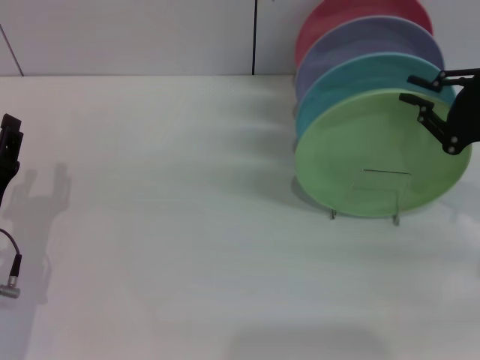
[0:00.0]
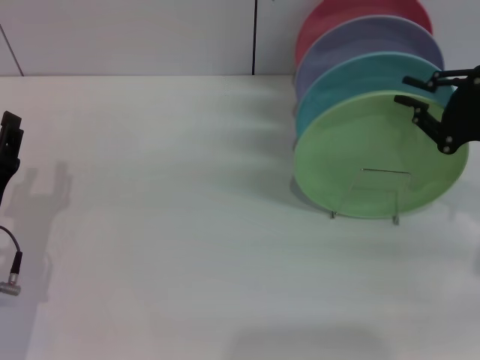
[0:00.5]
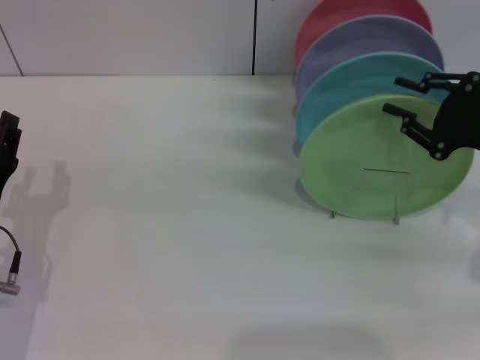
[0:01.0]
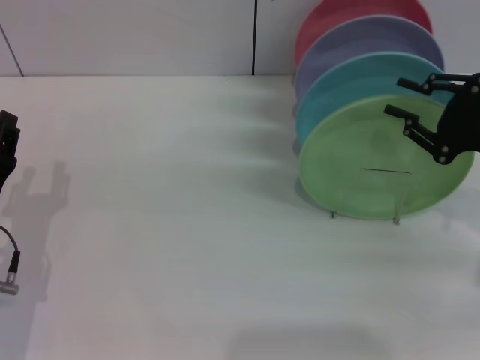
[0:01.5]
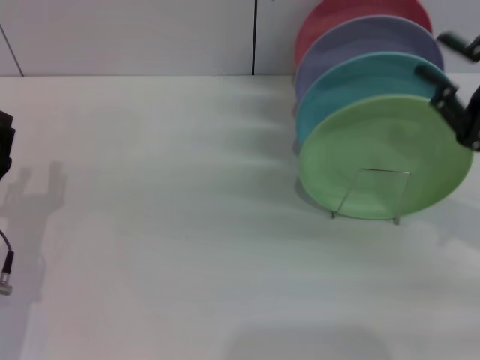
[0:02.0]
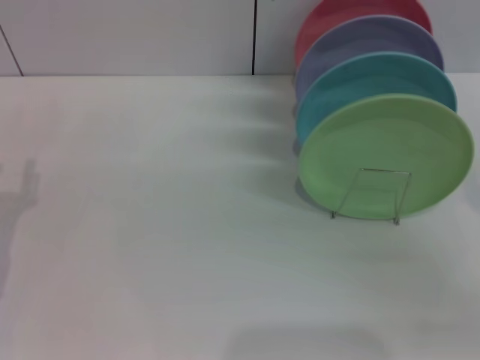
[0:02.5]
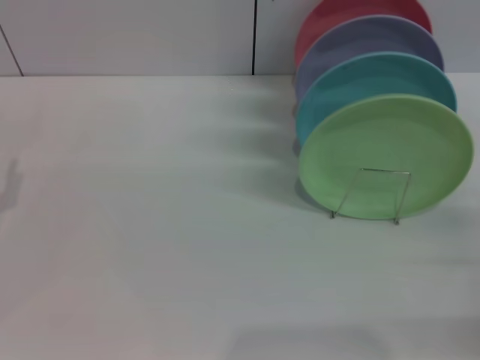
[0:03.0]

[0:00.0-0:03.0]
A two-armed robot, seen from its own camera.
Task of the whole recording: Grip the plate with one hand, pass it to the other, then set it on the shelf.
0:00.0 to 0:01.5: Both grippers stay put.
0:01.5 to 0:03.0: The left gripper goes roughly 5 cm to the left. The right gripper is displaced backward and downward by roughly 10 cm.

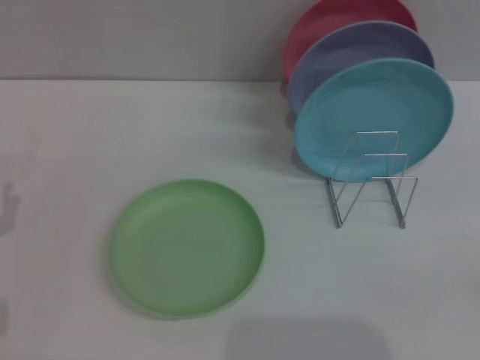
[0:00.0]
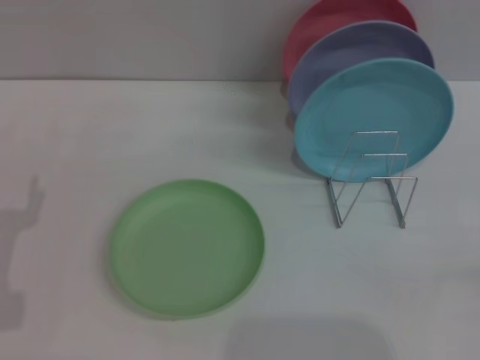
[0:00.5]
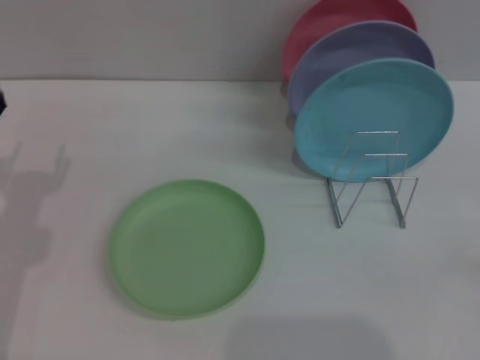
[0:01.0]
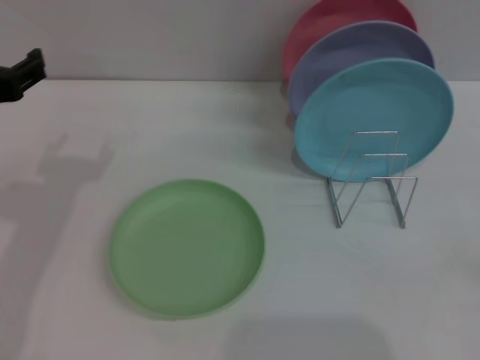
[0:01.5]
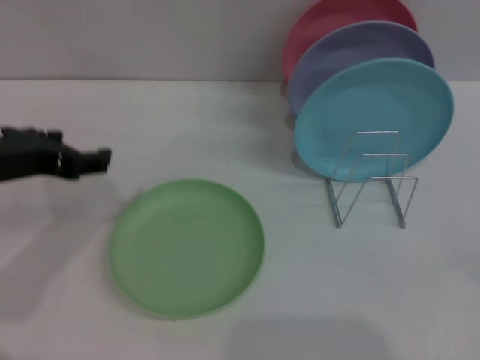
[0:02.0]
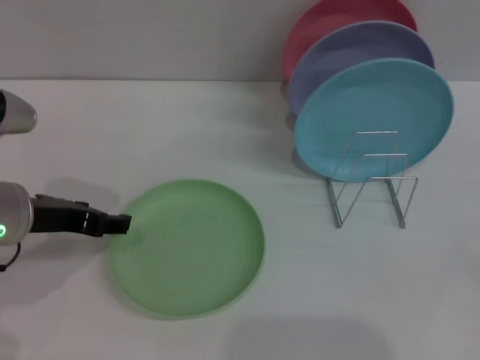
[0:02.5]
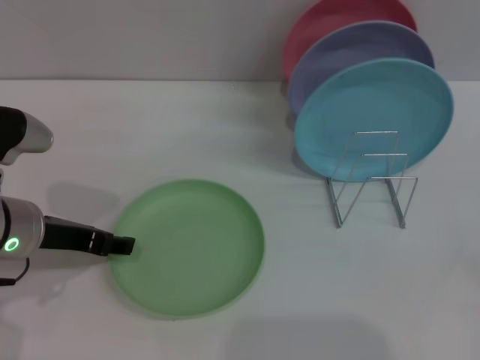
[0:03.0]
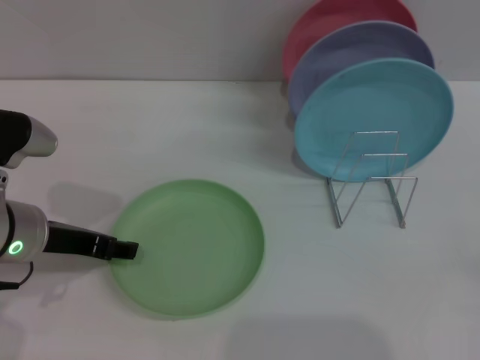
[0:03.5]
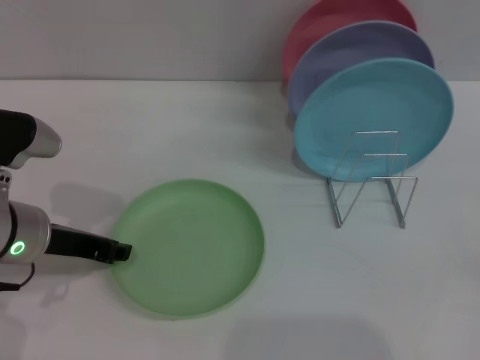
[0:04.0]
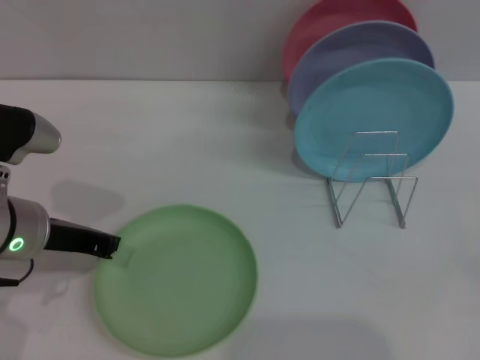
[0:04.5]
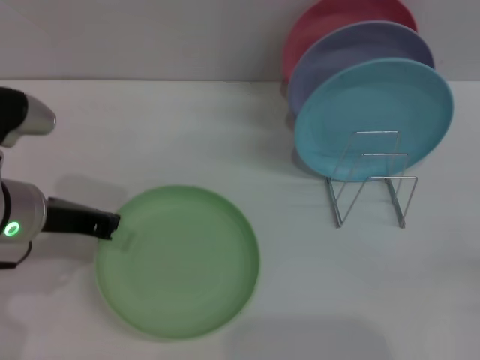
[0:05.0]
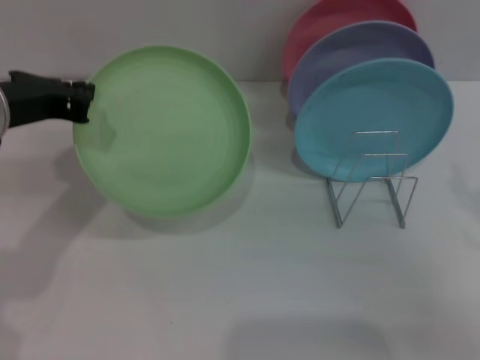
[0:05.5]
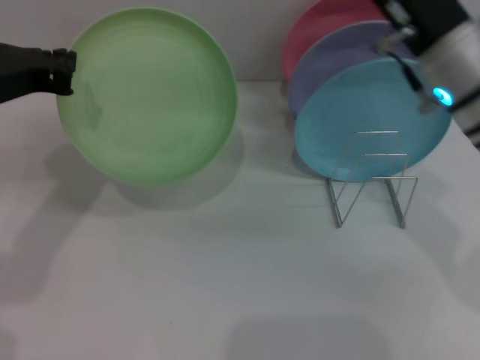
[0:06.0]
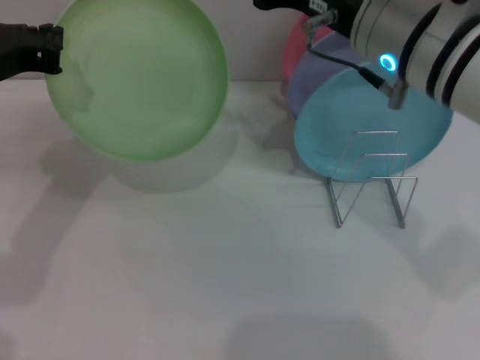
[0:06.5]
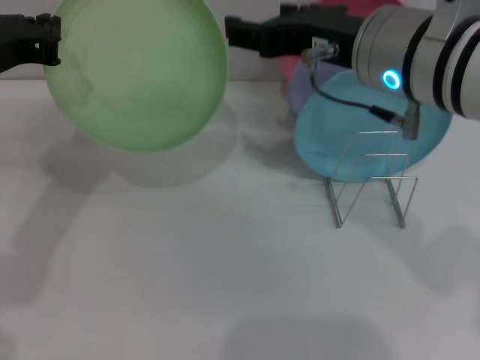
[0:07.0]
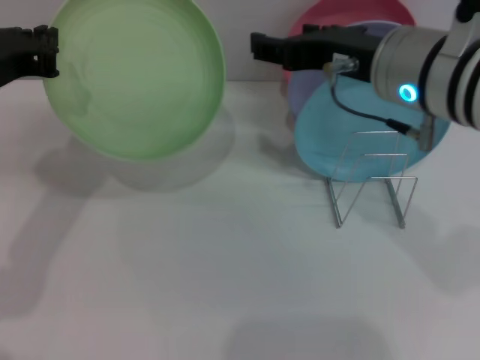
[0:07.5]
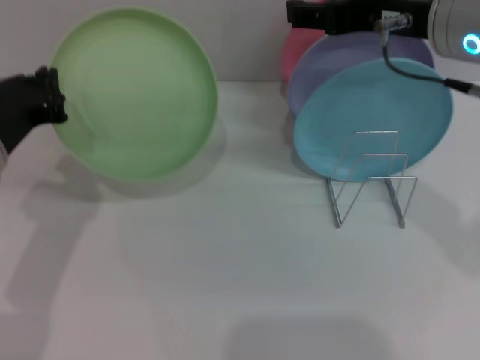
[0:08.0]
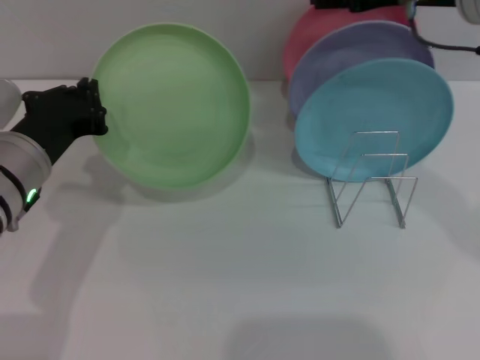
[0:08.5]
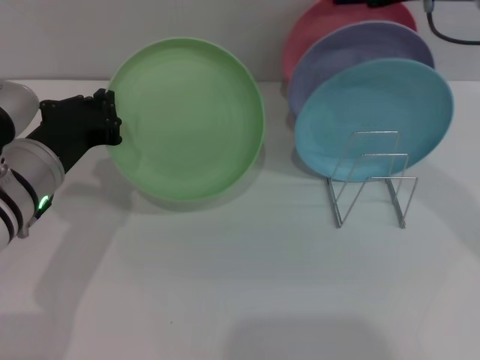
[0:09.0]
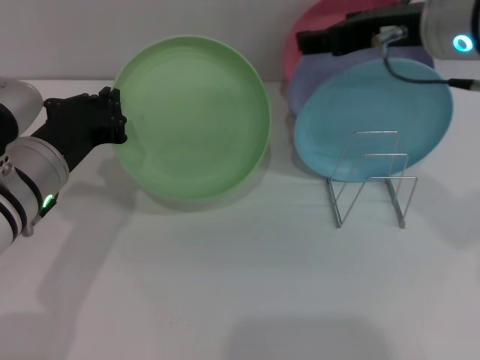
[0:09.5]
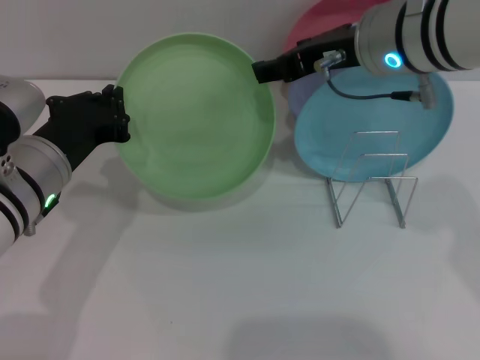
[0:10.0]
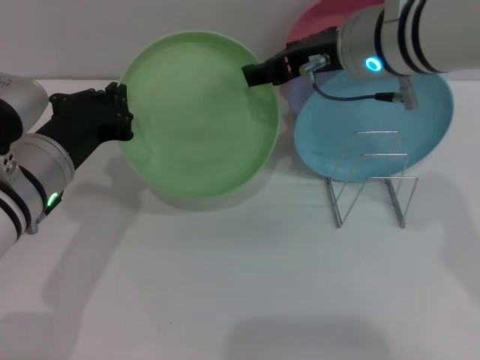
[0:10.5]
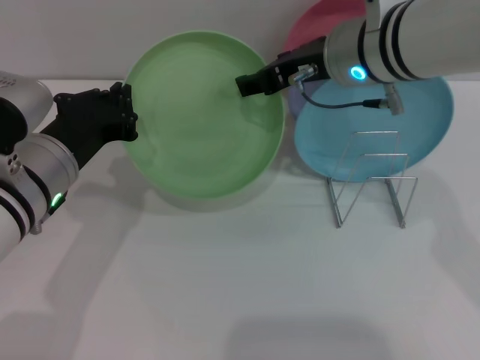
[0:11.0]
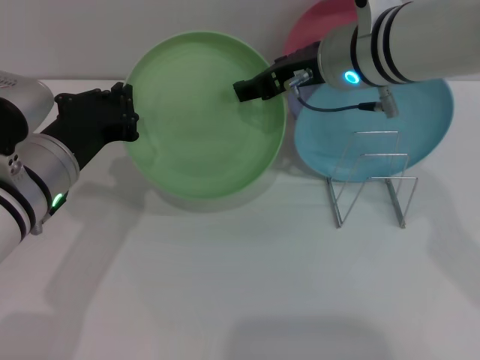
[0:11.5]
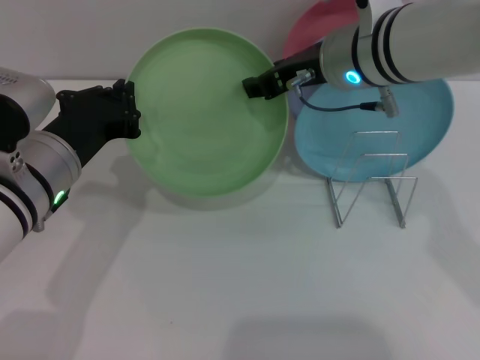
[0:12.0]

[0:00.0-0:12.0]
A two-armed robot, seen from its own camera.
Task of the whole recording: Grip the plate with one hand, pass it to the other, then set it on the shelf.
Step, 0:00.0 to 0:05.5: Pick up the plate with the left gripper.
0:00.0 to 0:02.0: The left gripper goes roughly 20 cm upward, to the right and forward.
0:02.0 to 0:04.0: The left gripper shifts some 10 cm downward.
0:04.0 to 0:06.0: The right gripper moves to the left, forward and upward, approximately 30 cm, while the left gripper heads upward, covering approximately 10 cm, and closes up.
0:06.0 to 0:08.0: The left gripper moves downward, roughly 5 cm. Meanwhile the right gripper shifts roughly 10 cm upward.
0:08.0 to 0:10.0: The right gripper ends up some 5 cm from where it was.
0:10.0 to 0:12.0: The grippers make only small movements.

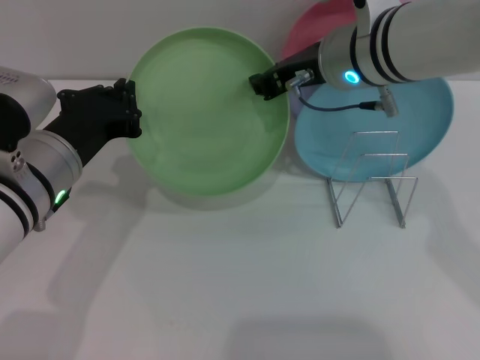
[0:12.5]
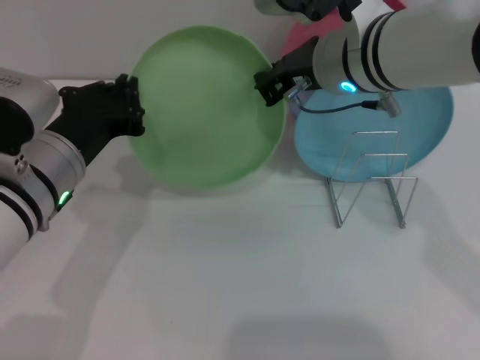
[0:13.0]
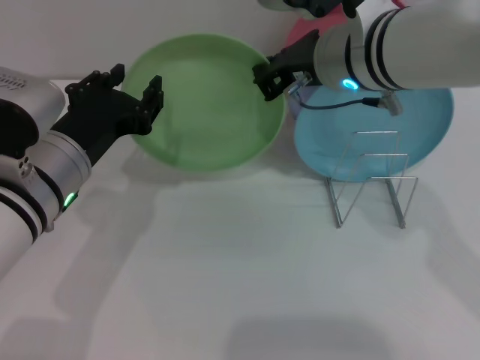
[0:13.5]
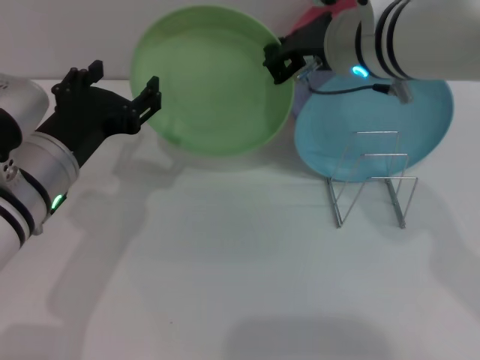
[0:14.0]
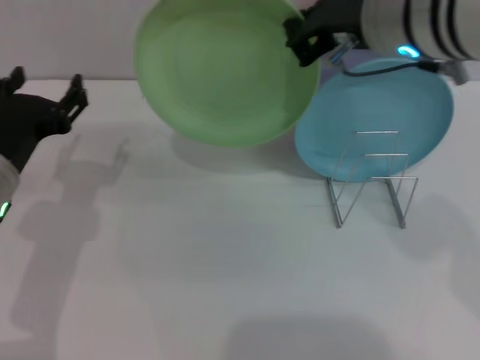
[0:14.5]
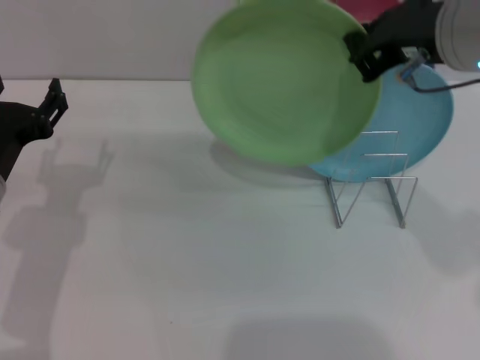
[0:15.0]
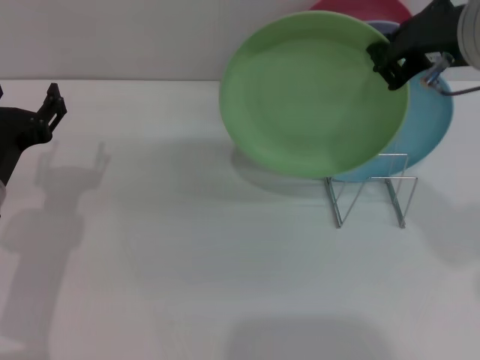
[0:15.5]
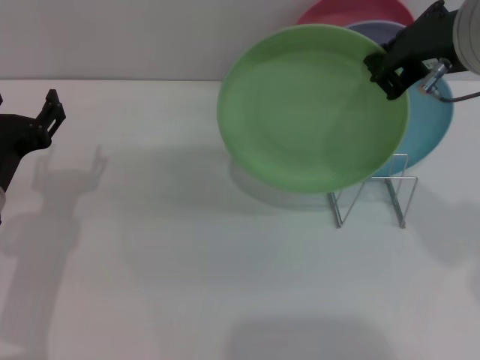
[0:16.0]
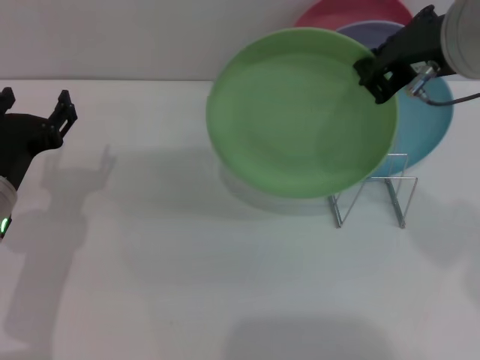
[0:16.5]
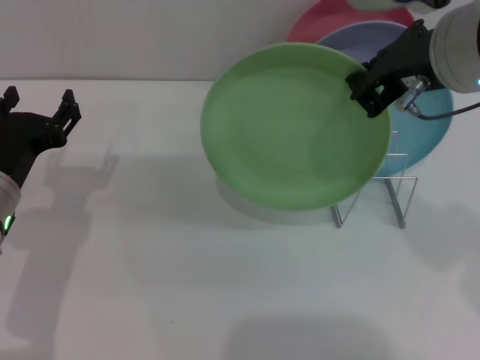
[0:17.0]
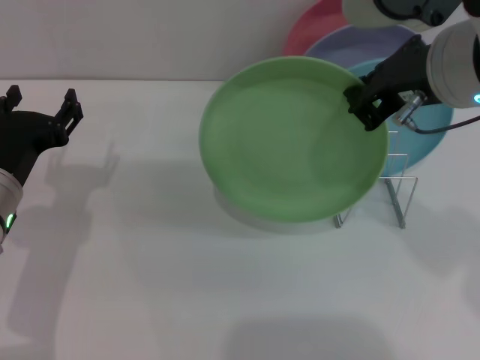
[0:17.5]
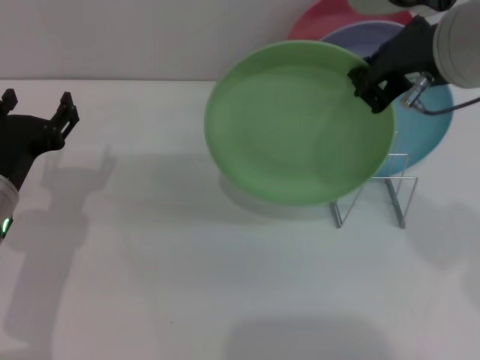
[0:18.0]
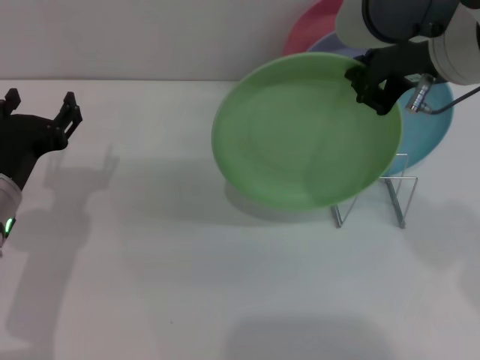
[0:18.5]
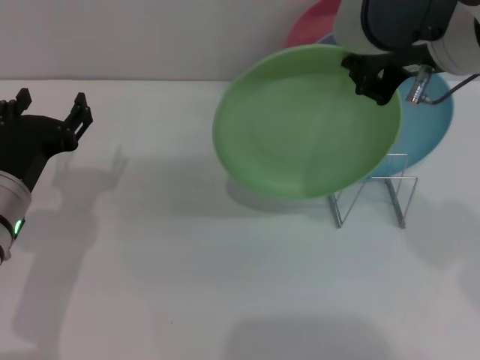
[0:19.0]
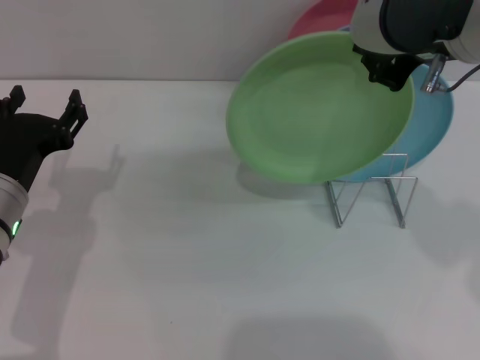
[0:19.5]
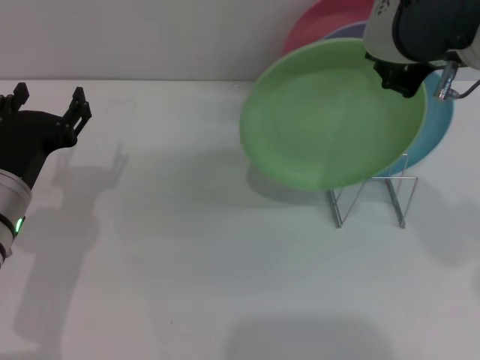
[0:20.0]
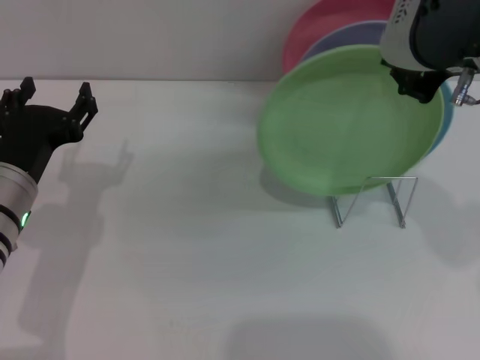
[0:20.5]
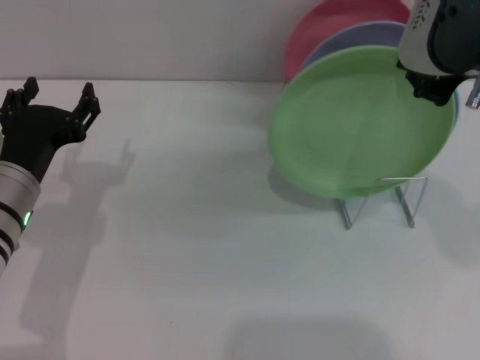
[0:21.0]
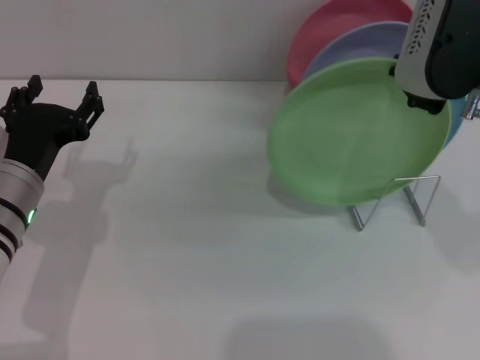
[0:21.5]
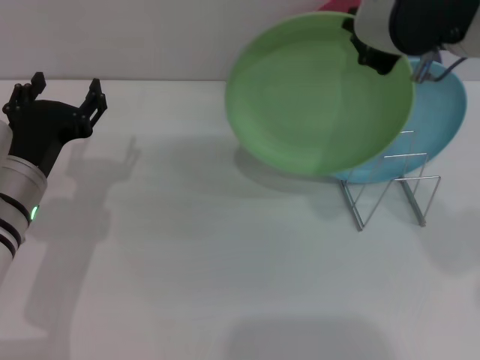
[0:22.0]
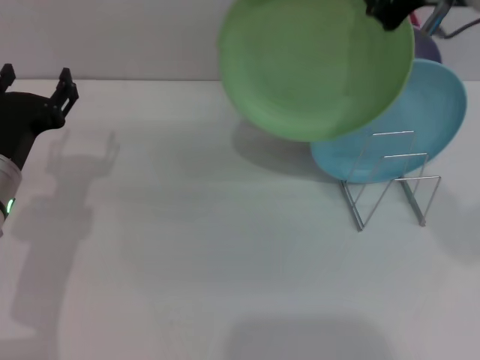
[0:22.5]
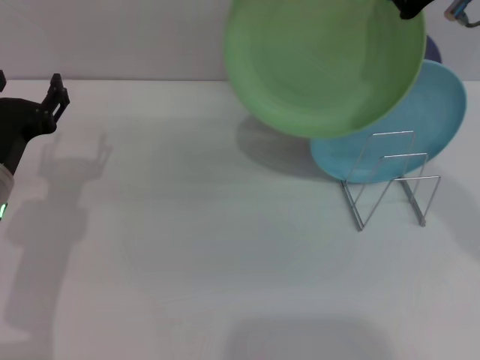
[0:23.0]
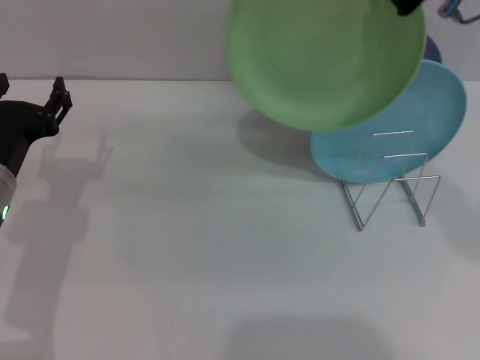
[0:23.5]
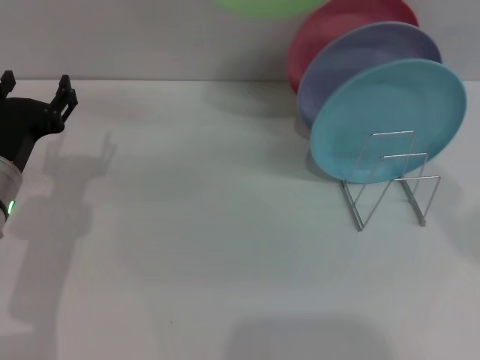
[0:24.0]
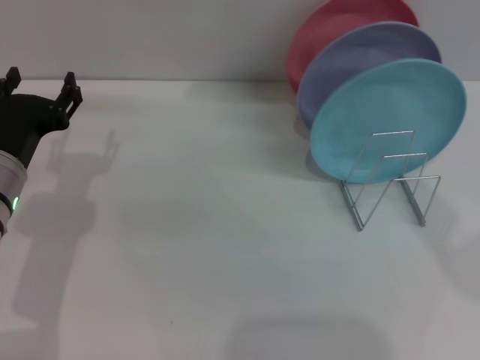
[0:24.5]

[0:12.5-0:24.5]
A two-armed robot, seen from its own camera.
Task of the whole recording: Grip the plate with one hand, pass it to the other, then set it on the shelf.
0:12.5 to 0:14.5: The left gripper opens up, while the right gripper moves upward and backward, some 10 cm, and closes.
0:14.5 to 0:16.5: There are only small adjustments of the grippers.
0:16.5 to 0:18.5: The grippers move only a little.
0:18.5 to 0:22.5: There are only small adjustments of the grippers.
